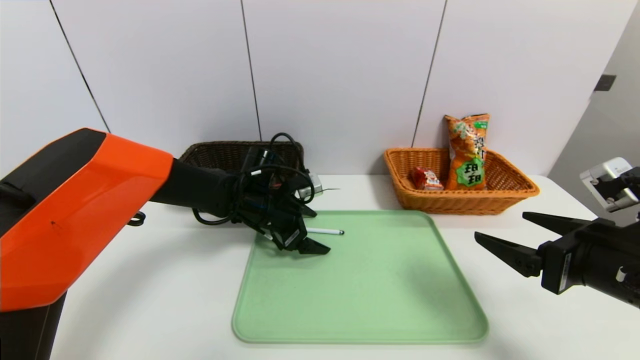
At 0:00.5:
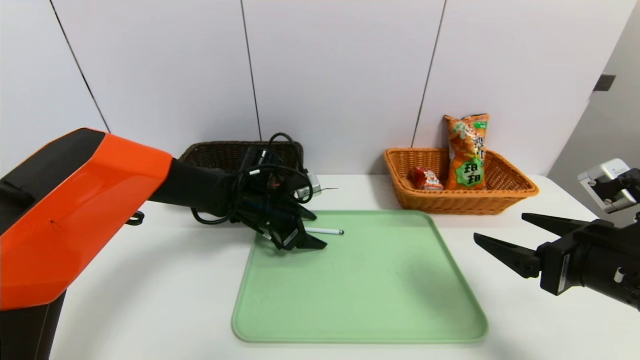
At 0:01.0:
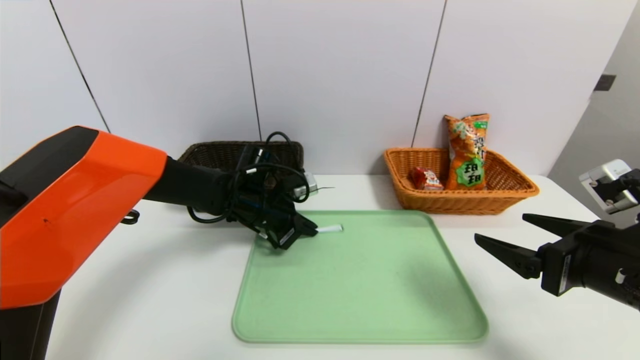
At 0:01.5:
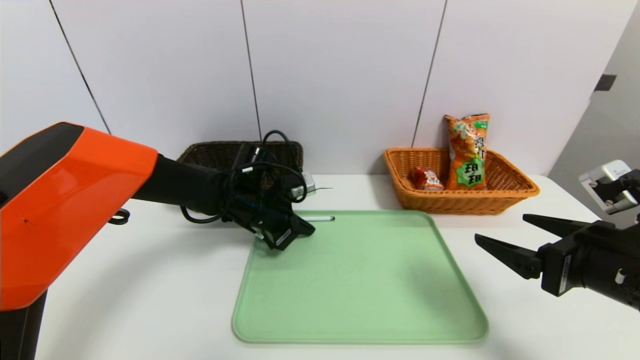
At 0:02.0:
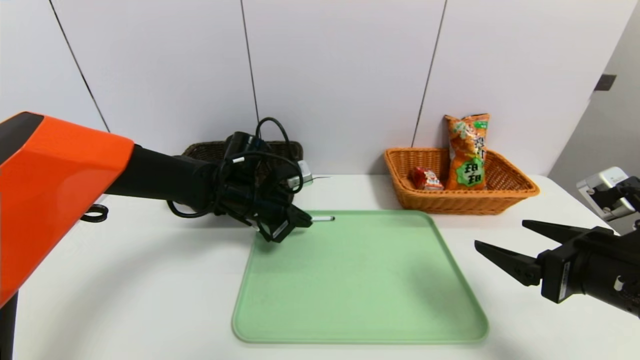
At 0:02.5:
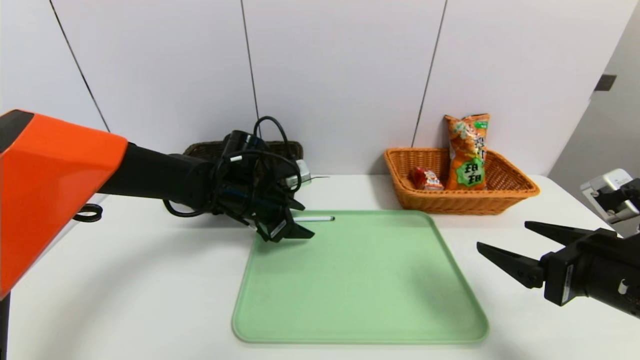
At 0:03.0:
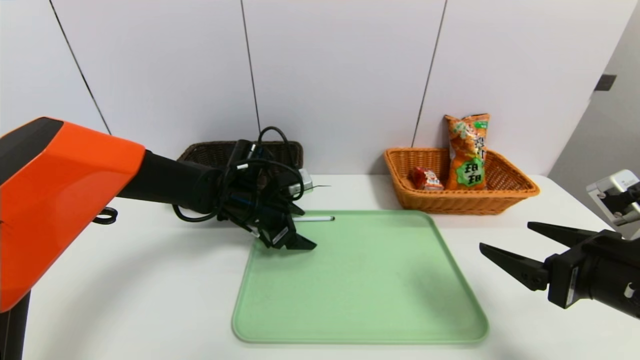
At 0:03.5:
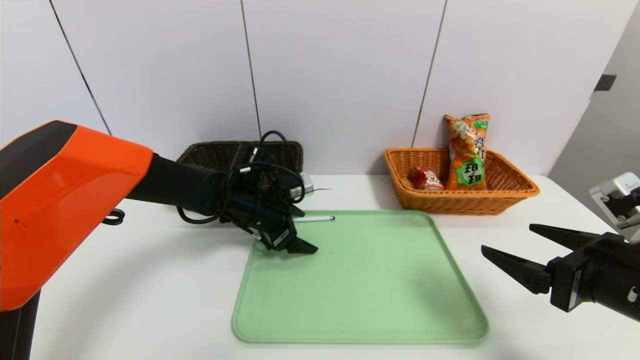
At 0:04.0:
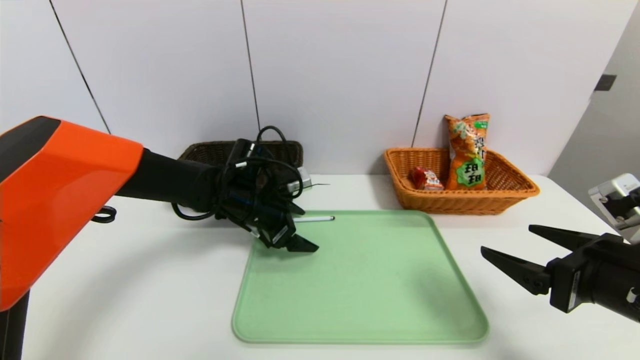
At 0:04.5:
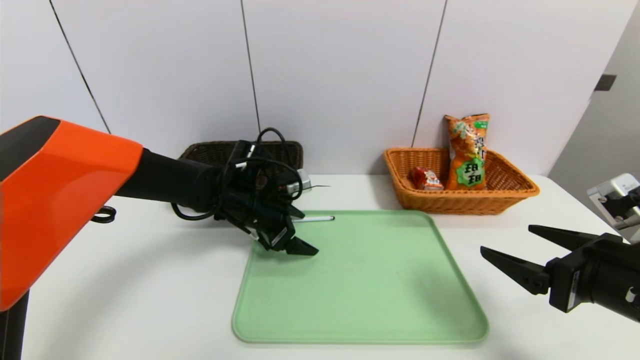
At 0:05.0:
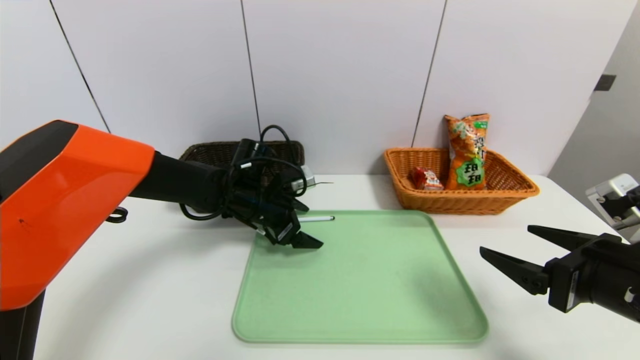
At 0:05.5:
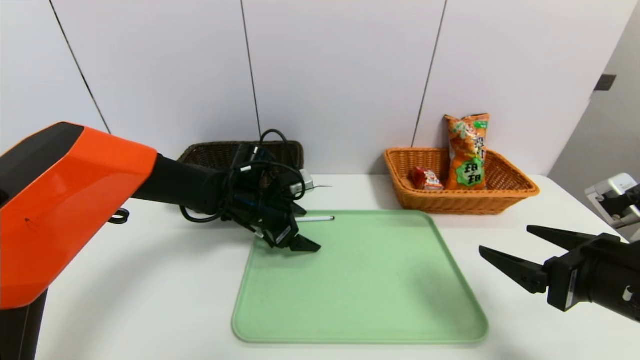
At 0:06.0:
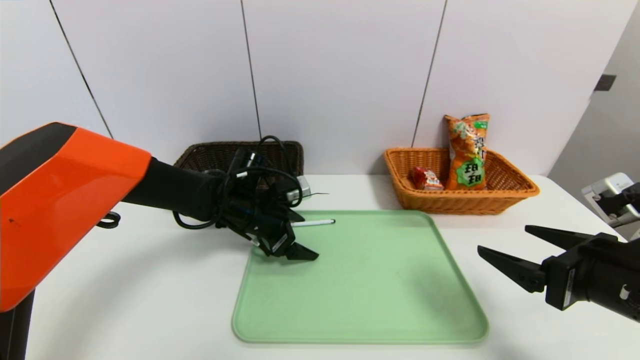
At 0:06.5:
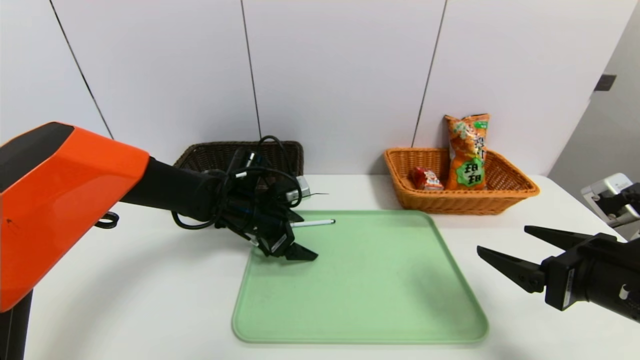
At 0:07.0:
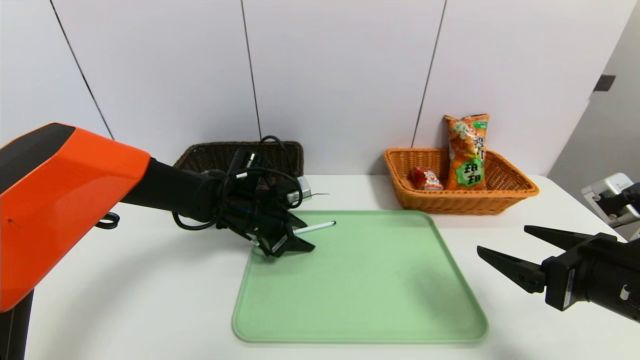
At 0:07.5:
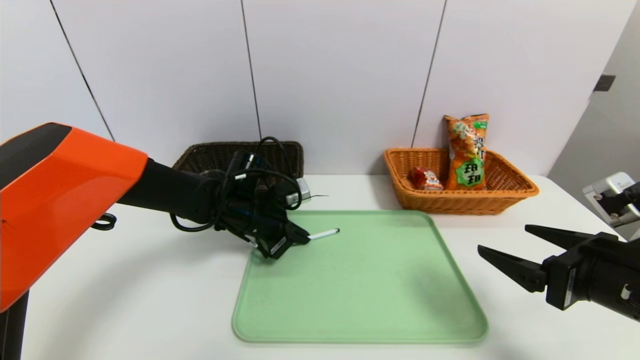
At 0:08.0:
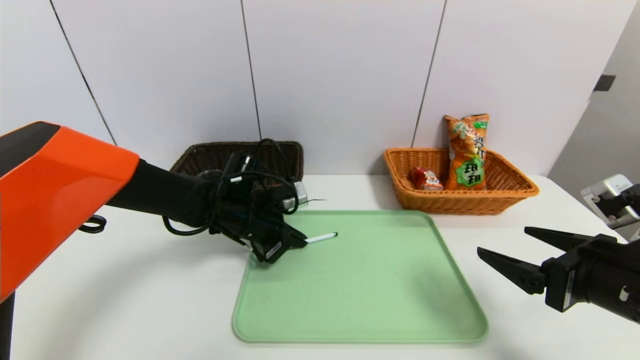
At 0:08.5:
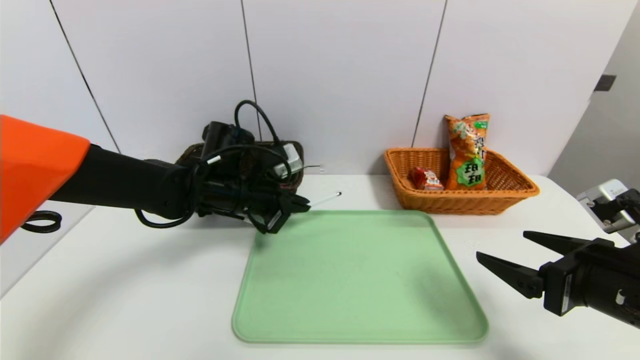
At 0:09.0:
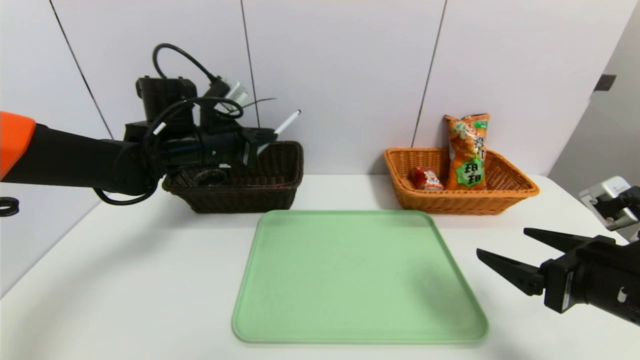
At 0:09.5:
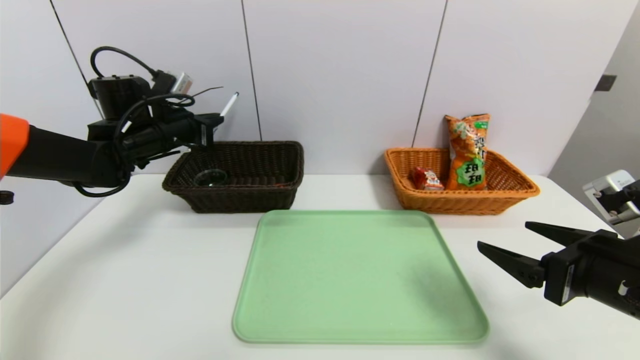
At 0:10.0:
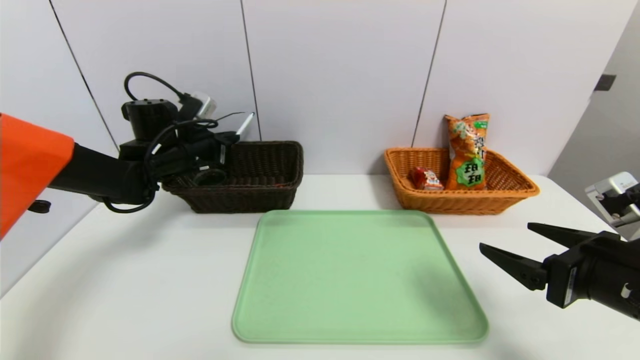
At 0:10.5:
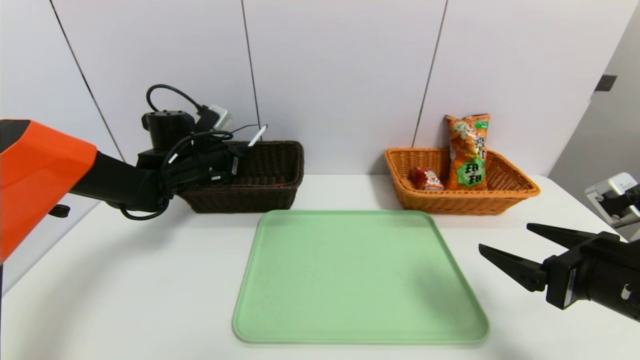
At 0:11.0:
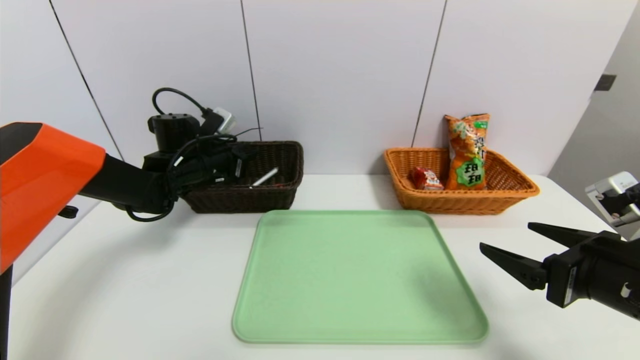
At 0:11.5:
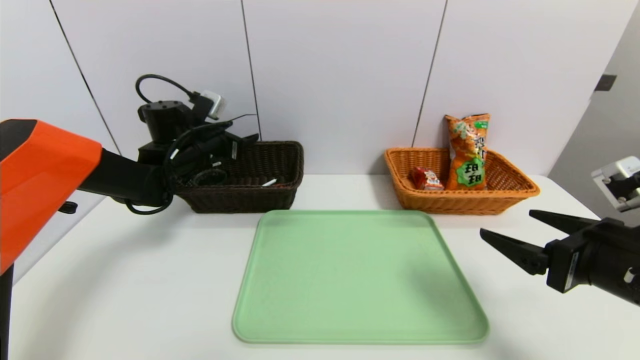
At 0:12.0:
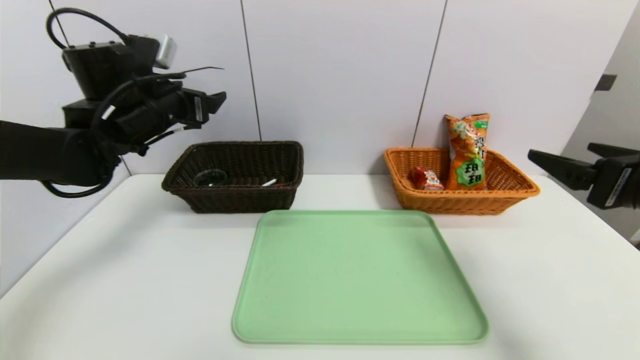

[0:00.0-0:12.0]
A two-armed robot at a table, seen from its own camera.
Task of the whole recording: place the food in the right basket with the right gripper, and place the non food items in the left basket with the left gripper.
Step, 0:00.0 to 0:11.0: Grasp the ballpoint pen and put it in the left basket.
0:00.0 to 0:02.0: The left gripper closes up.
0:02.0 to 0:04.0: The left gripper opens up.
0:04.0 to 0:06.0: The grippers stay close to where they were, moving slightly.
0:06.0 to 0:08.0: The left gripper closes up.
0:08.0 to 0:10.0: The left gripper is displaced to the left, upward and forward by about 15 cm.
0:10.0 to 0:12.0: The left gripper is displaced upward and backward by about 10 cm, and opens its fingers. Meanwhile the right gripper goes about 5 cm upward.

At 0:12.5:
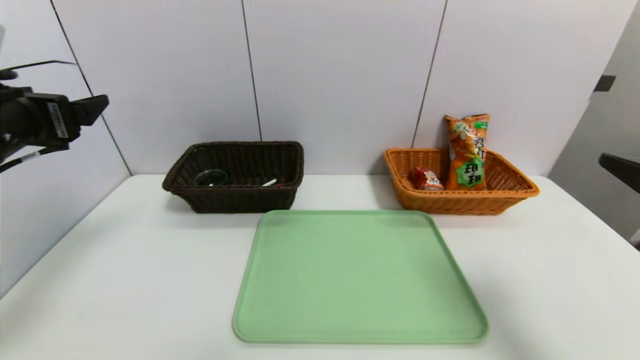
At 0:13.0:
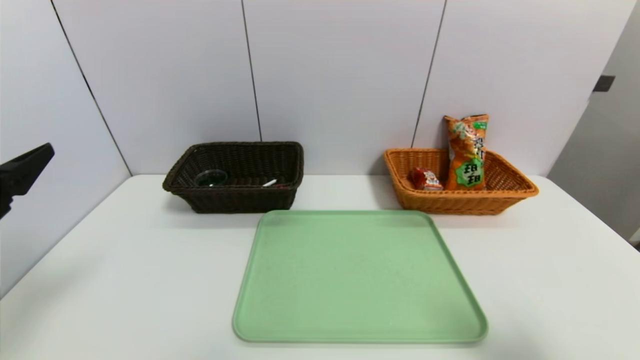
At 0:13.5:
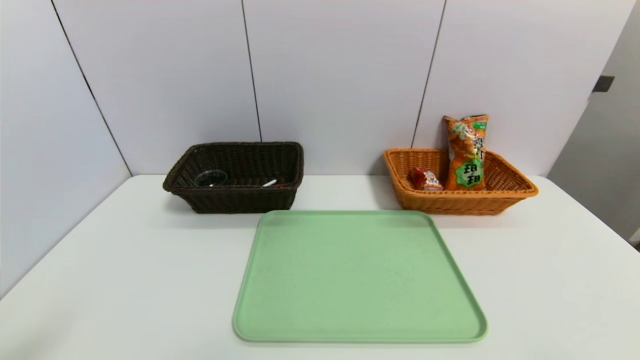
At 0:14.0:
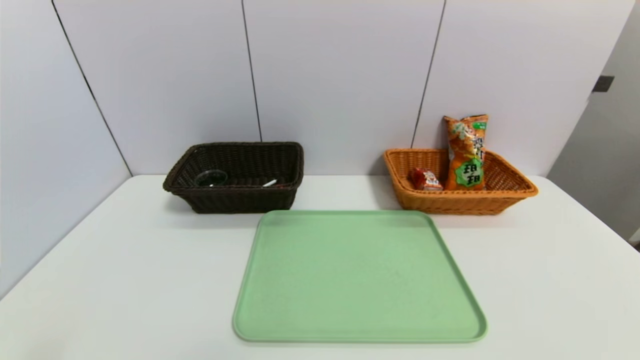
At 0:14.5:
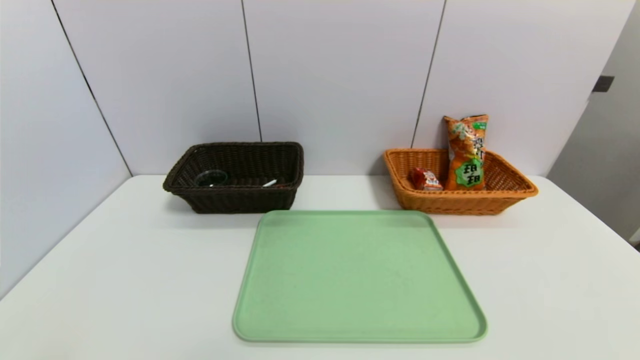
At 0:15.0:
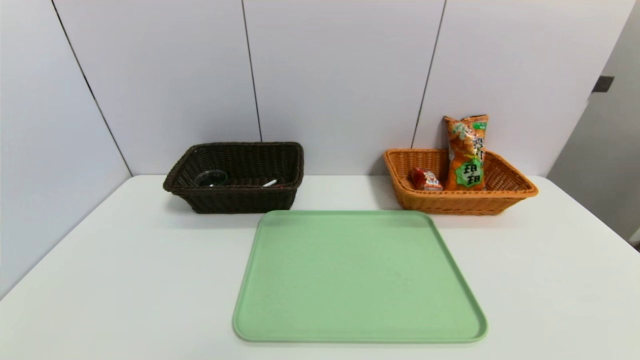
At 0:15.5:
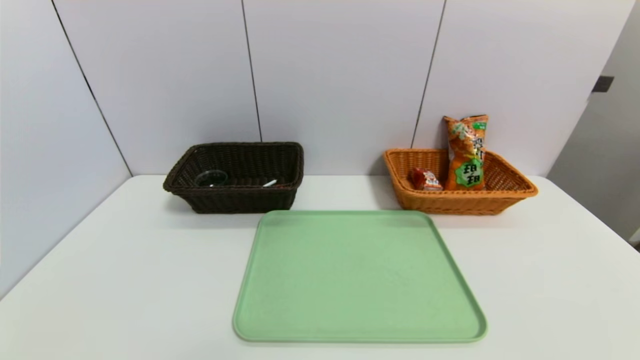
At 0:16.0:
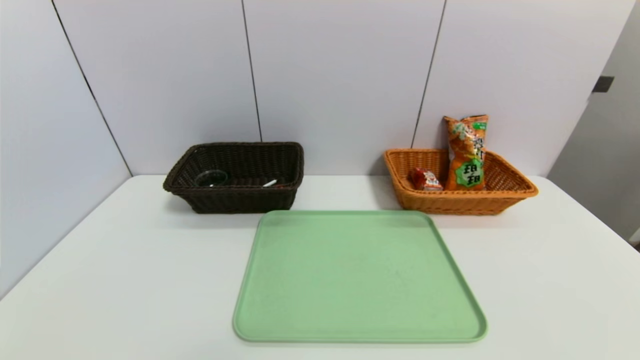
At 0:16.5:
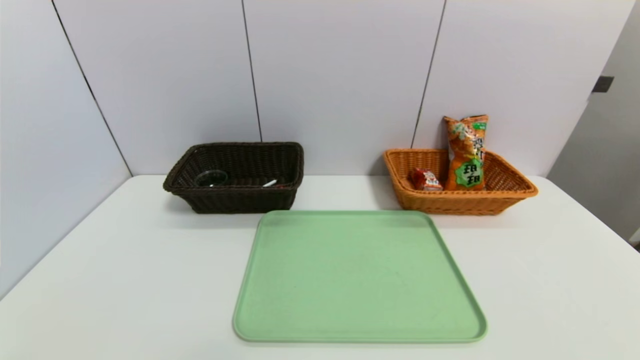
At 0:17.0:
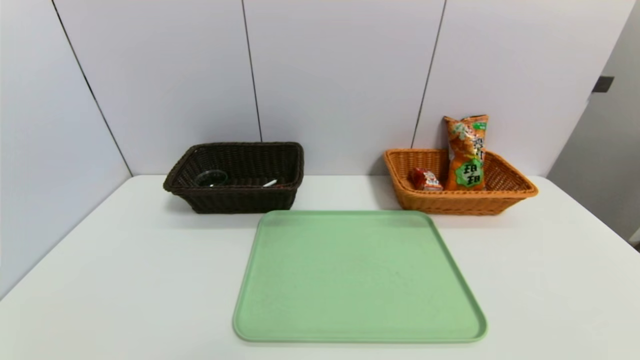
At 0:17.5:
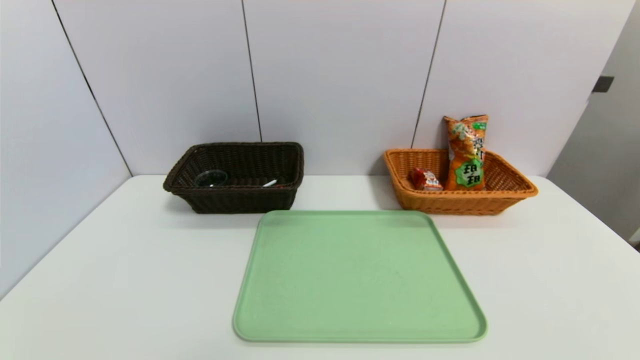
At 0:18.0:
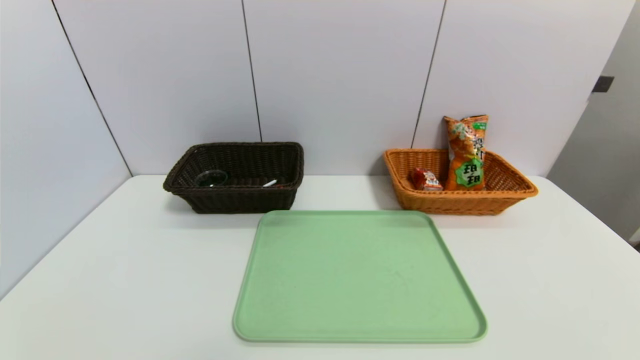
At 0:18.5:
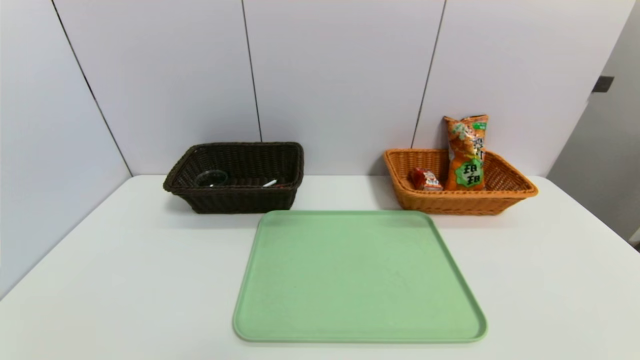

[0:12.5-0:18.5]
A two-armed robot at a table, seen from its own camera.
Task of the whole recording: place the food in the right basket with the right gripper, and place the non food items in the left basket with the left gripper.
0:12.5 to 0:14.5: The right gripper goes some 20 cm backward and downward; the left gripper goes about 25 cm backward.
